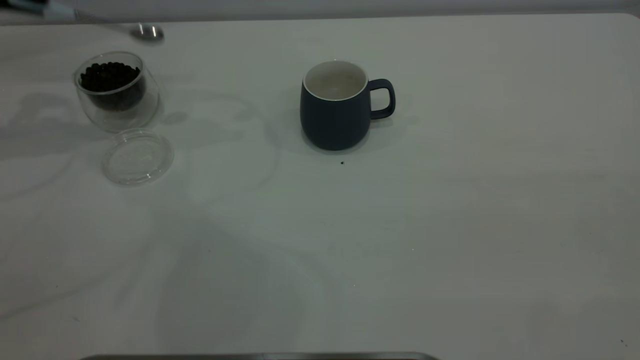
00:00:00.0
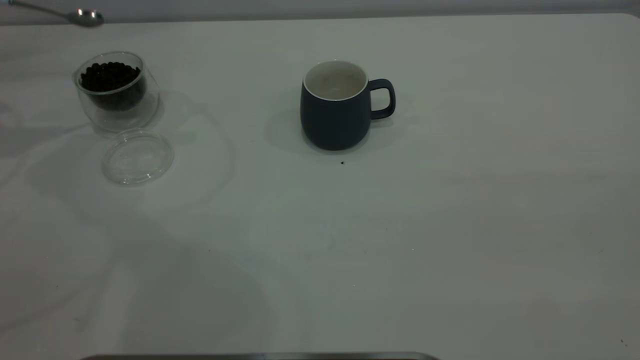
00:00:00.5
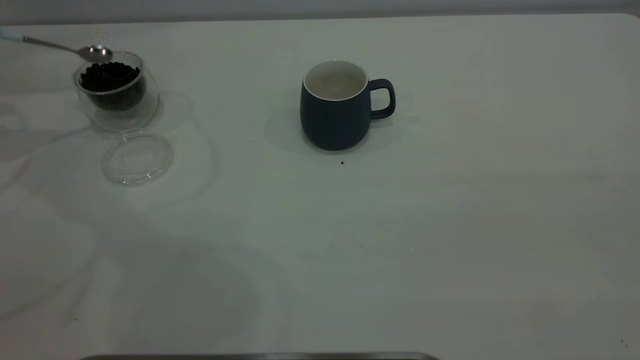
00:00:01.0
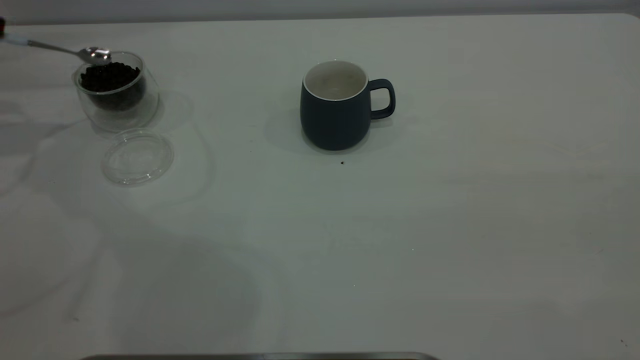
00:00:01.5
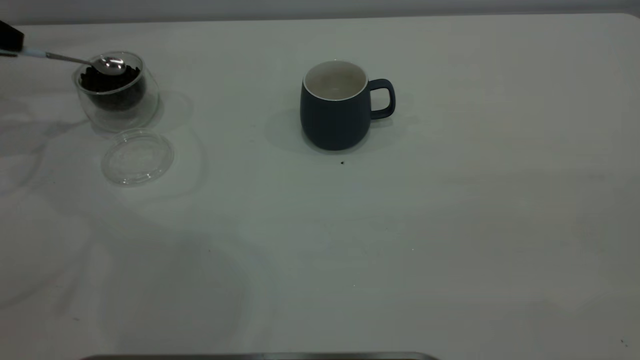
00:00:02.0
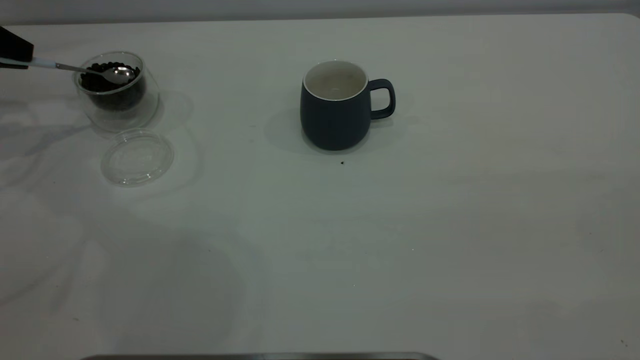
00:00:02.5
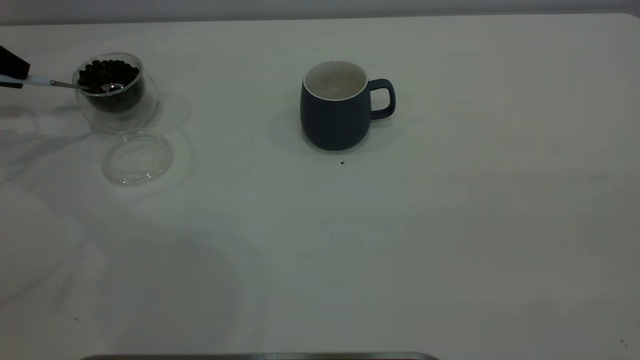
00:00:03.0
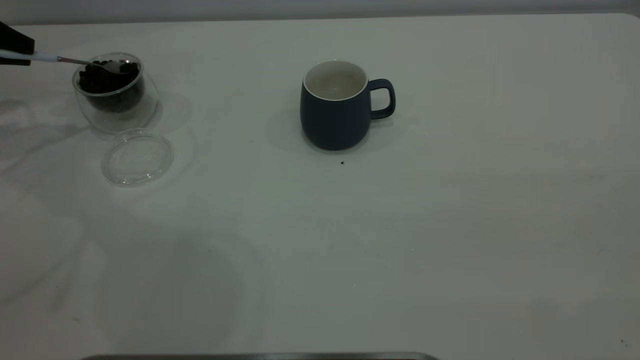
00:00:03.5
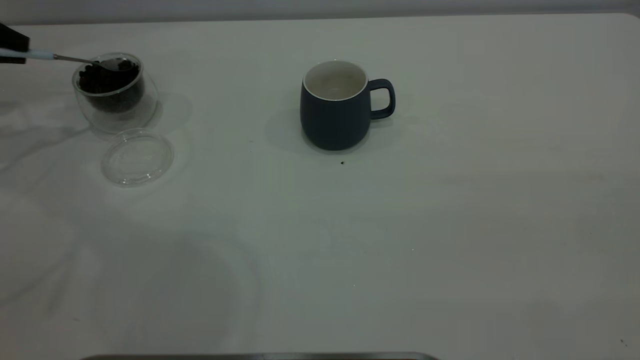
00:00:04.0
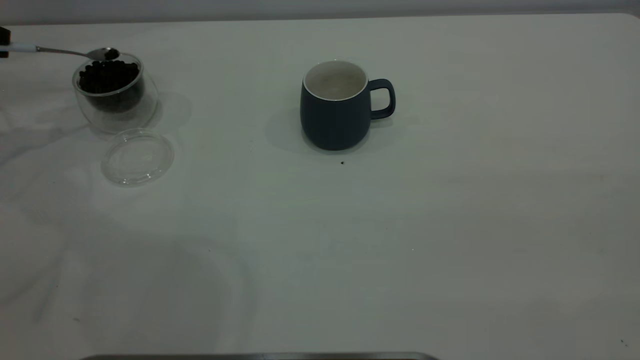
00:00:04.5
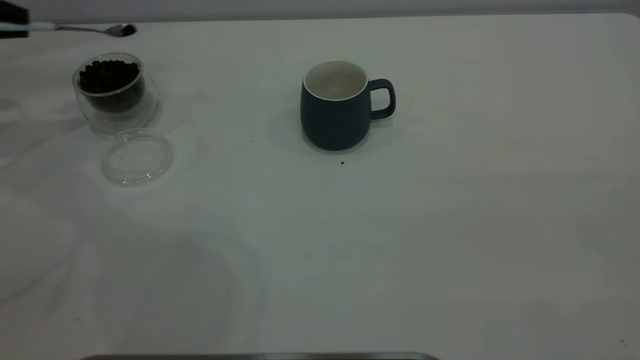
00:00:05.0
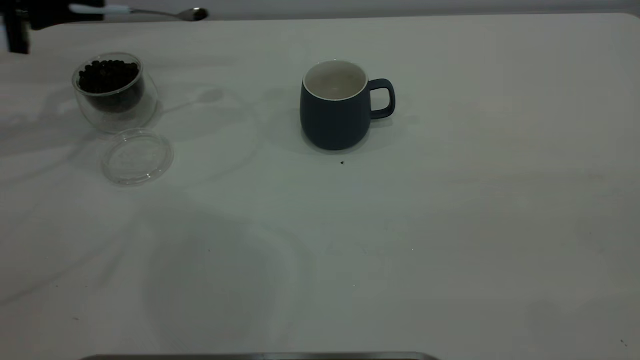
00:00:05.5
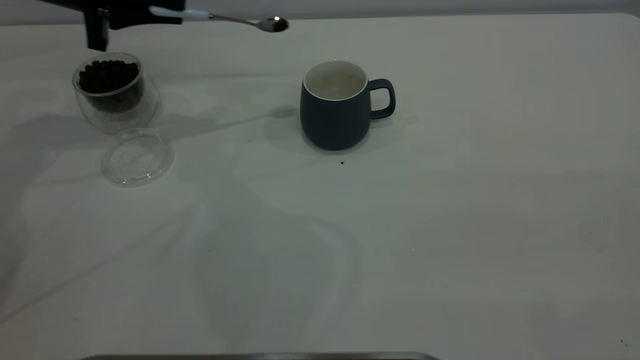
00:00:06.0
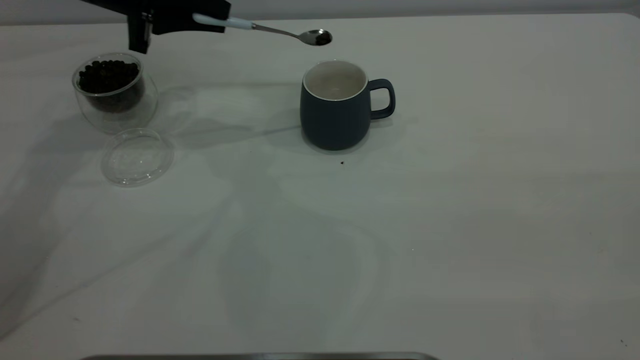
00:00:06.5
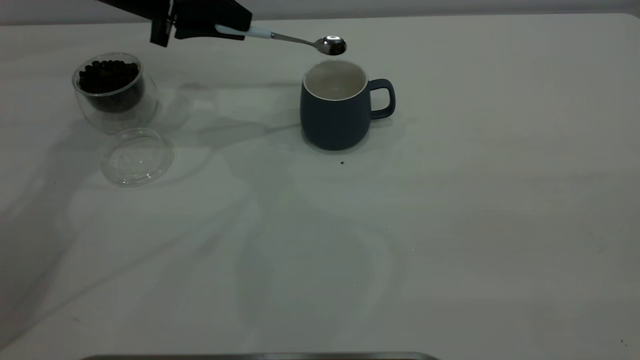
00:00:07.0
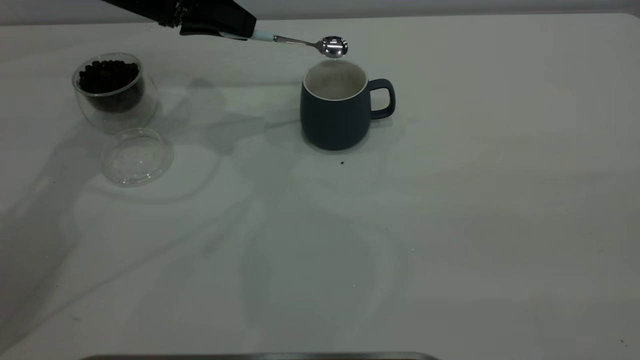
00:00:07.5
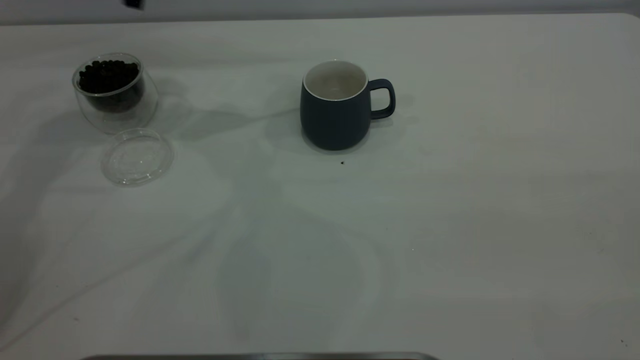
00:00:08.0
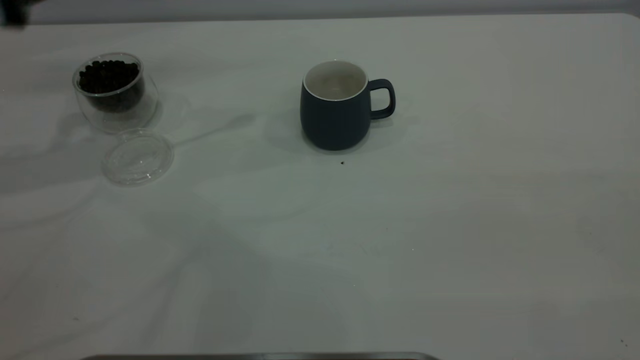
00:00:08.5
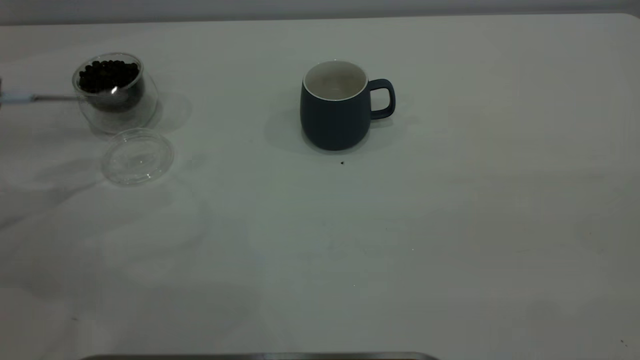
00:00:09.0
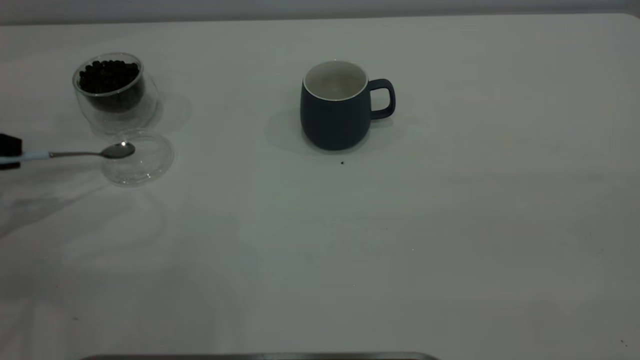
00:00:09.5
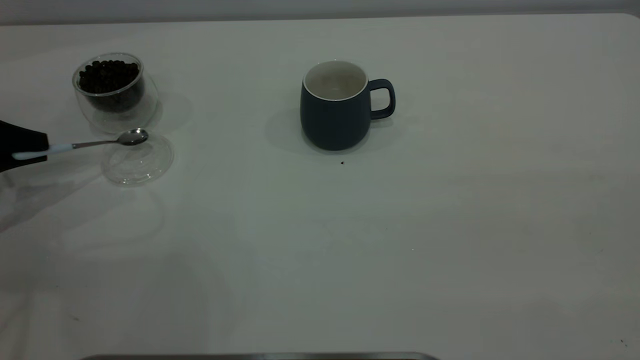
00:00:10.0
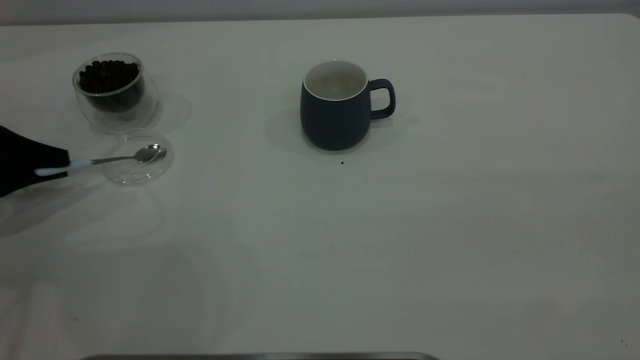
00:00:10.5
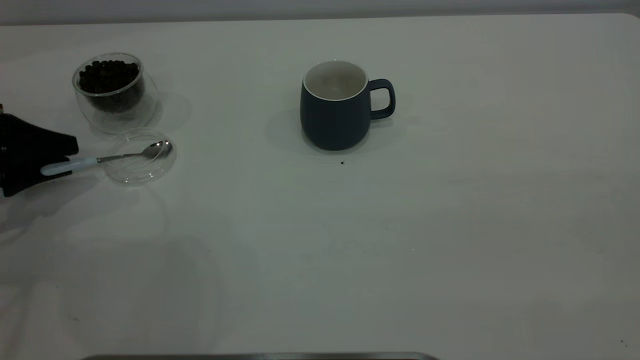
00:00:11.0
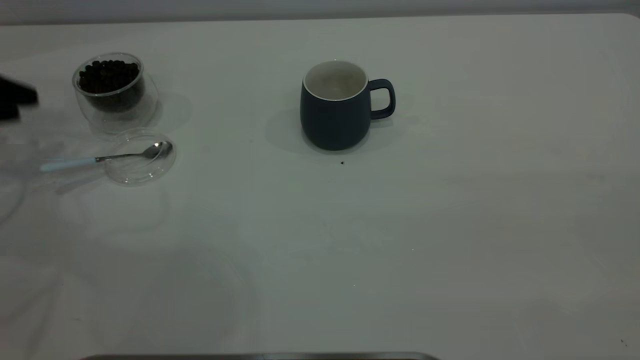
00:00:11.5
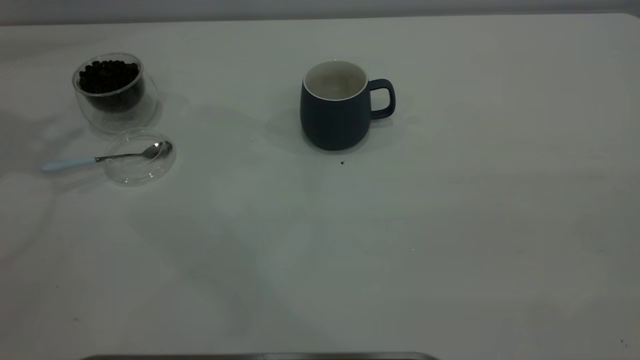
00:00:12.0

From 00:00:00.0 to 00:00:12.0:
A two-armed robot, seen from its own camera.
Task of the whole recording: the right gripper place the grey cup in the center of the table, the left gripper take the blue spoon from the cup lid and scoop out the coffee beans from the coffee cup and put them into the grey cup, the left gripper put the spoon back into the cup lid.
Step, from 00:00:00.0 to 00:00:07.5: Scoop a spoonful of beans into the cup.
Step, from 00:00:08.0 to 00:00:11.5: Place the spoon back in its original place.
From 00:00:00.0 to 00:00:02.0: The left gripper goes approximately 10 cm downward and to the left.
From 00:00:04.0 to 00:00:06.0: The left gripper heads to the right, covering approximately 20 cm.
From 00:00:08.0 to 00:00:10.0: The left gripper goes about 25 cm to the left, backward and downward.
From 00:00:10.0 to 00:00:12.0: The left gripper goes some 25 cm upward, and opens its fingers.
